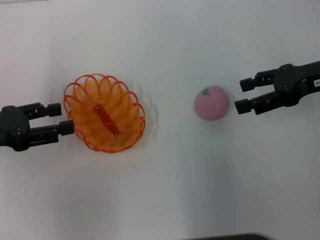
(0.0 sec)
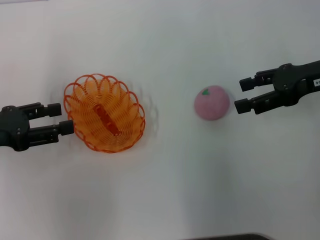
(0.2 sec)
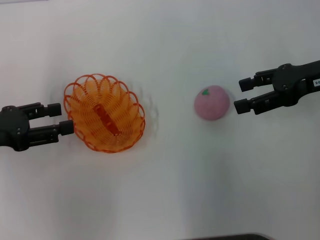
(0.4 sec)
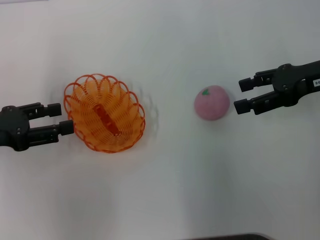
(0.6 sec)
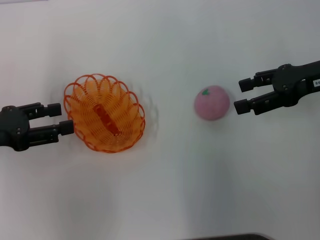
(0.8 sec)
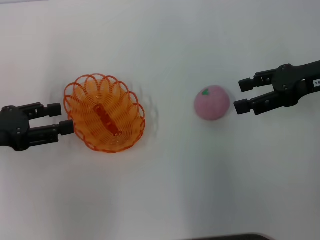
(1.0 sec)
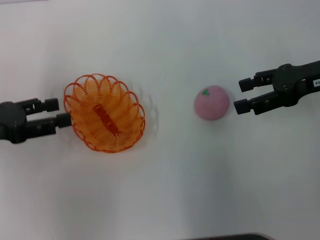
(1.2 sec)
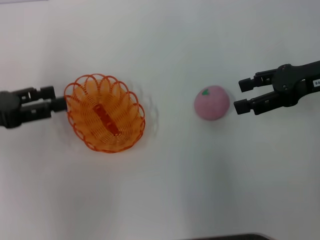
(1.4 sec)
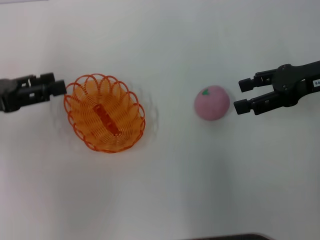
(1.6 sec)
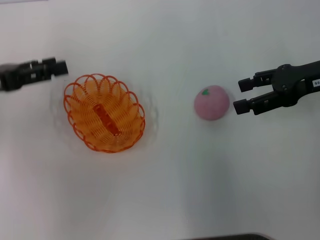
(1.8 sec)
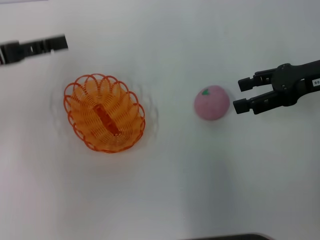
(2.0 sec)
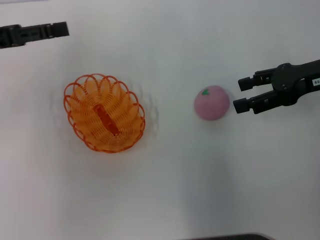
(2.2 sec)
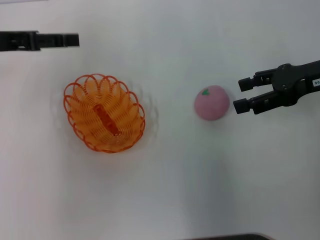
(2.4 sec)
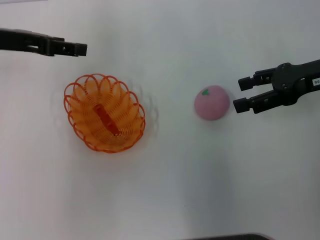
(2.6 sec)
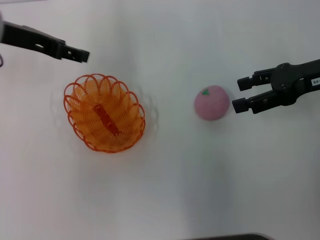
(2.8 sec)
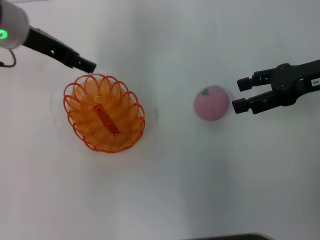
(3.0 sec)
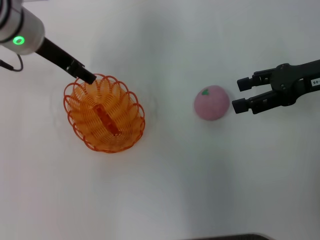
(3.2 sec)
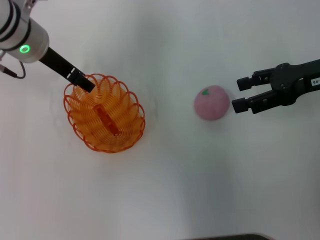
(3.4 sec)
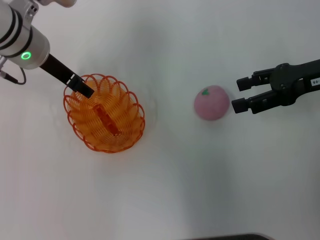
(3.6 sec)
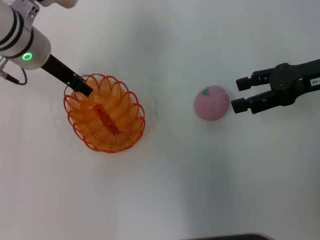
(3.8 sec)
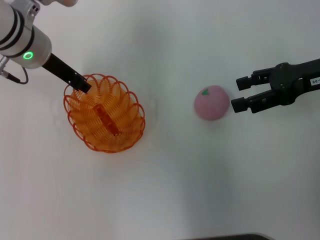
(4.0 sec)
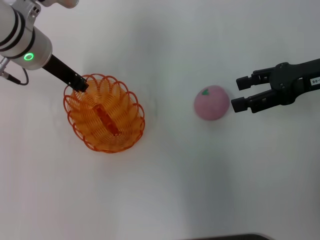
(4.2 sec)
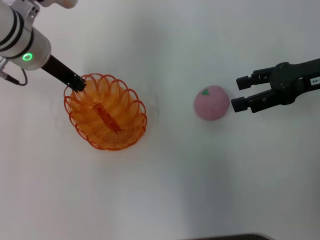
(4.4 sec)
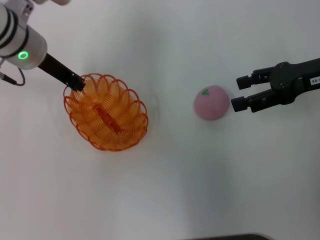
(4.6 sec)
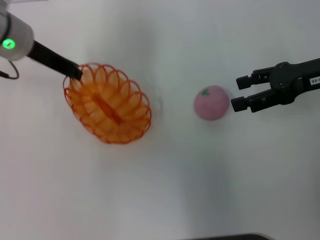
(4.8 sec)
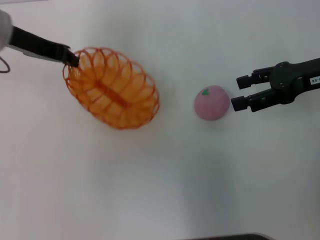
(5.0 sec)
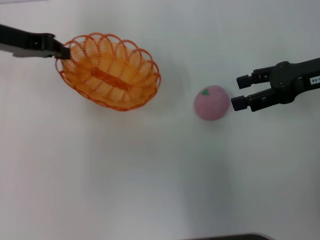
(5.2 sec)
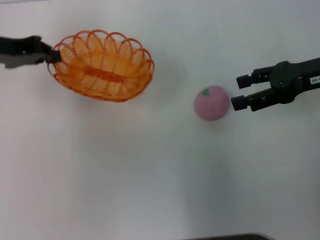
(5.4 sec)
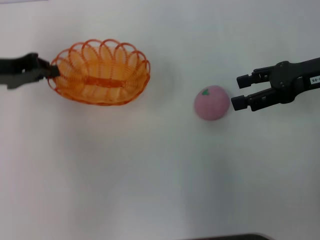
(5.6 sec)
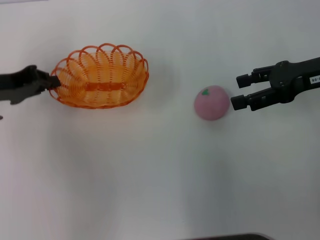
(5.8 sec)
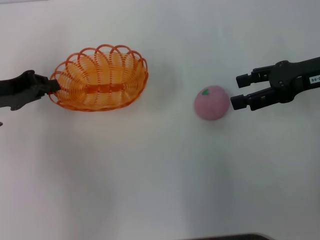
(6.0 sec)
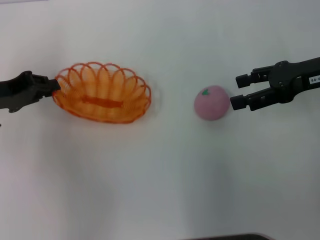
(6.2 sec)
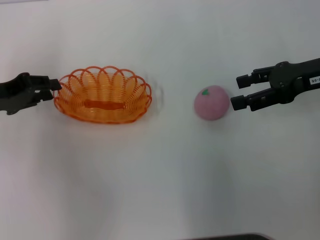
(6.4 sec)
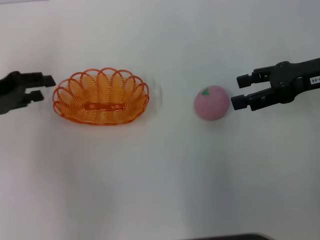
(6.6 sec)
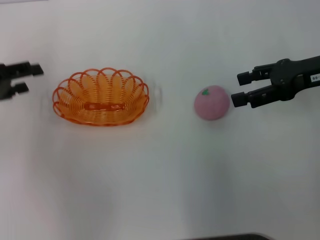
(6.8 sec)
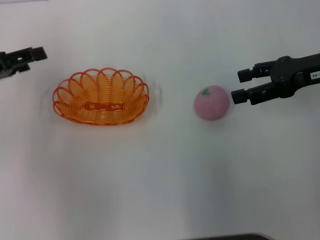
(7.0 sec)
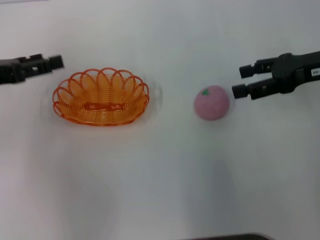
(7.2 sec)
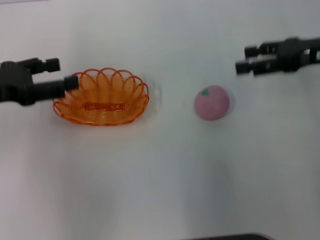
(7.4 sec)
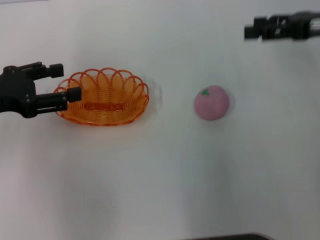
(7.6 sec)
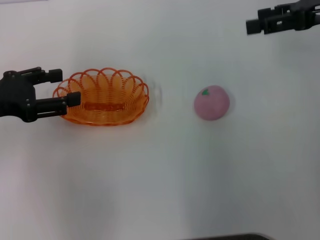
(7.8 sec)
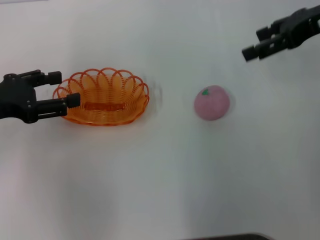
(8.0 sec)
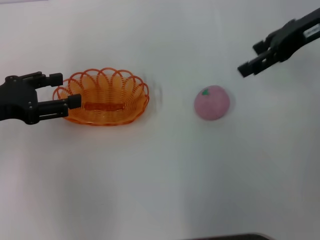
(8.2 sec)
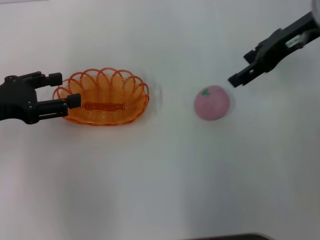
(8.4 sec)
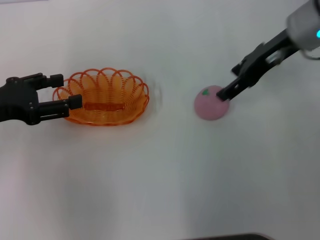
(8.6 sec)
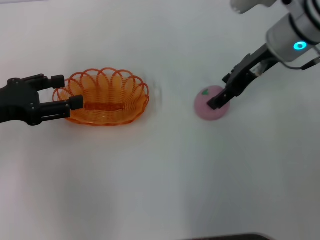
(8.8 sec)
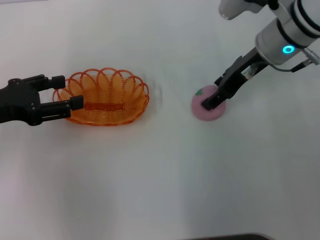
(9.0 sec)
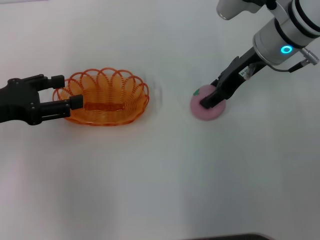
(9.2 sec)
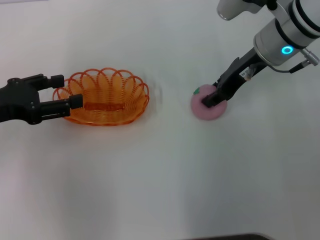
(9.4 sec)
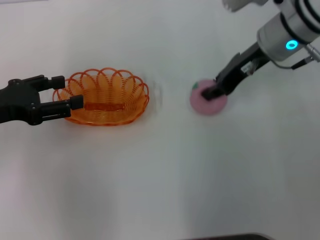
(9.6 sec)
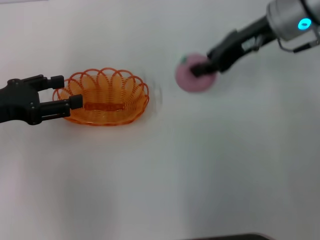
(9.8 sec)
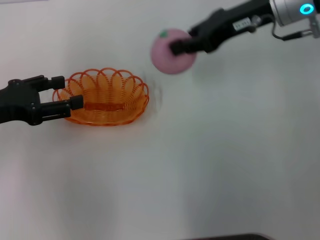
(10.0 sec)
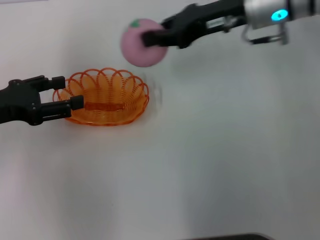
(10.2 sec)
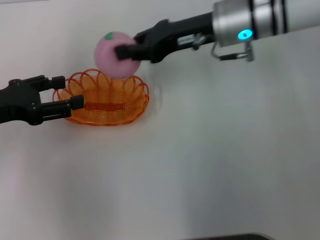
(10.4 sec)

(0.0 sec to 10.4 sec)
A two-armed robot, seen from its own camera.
Step, 0.0 sec - 5.2 sec: Pick up the basket with the left gripper.
Step, 5.4 sec - 7.8 sec: Place the basket in the center of view with the left gripper.
Step, 8.0 sec - 10.0 sec: Pick up the peach with the right gripper.
0.0 sec - 1.4 sec: There are only small adjustments of the grippers.
1.4 sec - 3.0 sec: The left gripper goes some 20 cm to the right, forward and upward.
3.0 sec - 4.4 sec: The left gripper closes.
4.4 sec - 6.0 sec: The left gripper heads to the left and backward, covering roughly 15 cm.
6.0 sec - 7.4 sec: The left gripper opens.
7.4 sec - 9.0 sec: The right gripper heads to the left and forward, covering approximately 15 cm.
9.0 sec - 10.4 sec: The right gripper changes place by approximately 5 cm, and closes its fingers.

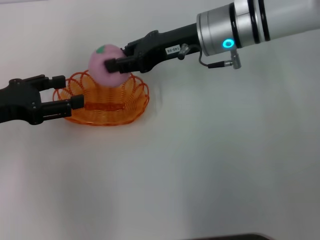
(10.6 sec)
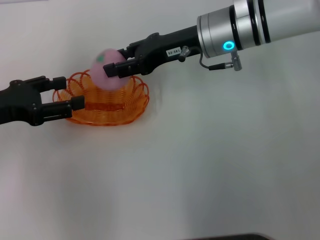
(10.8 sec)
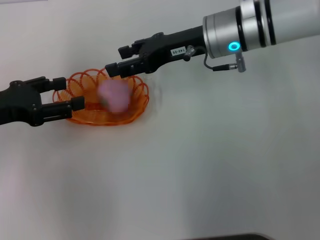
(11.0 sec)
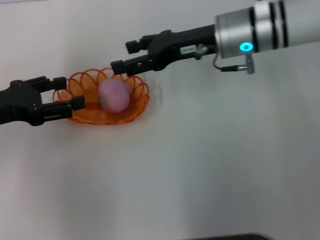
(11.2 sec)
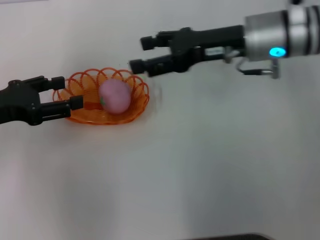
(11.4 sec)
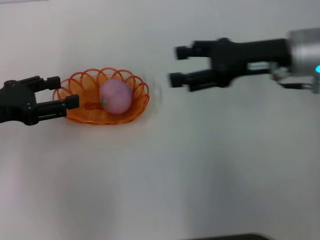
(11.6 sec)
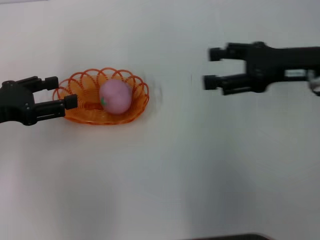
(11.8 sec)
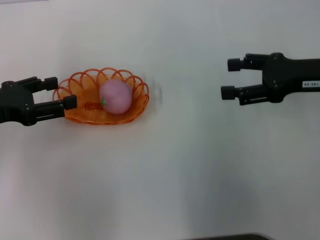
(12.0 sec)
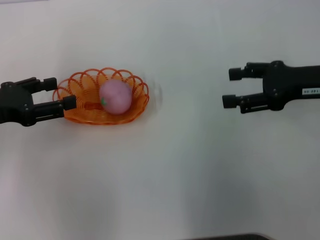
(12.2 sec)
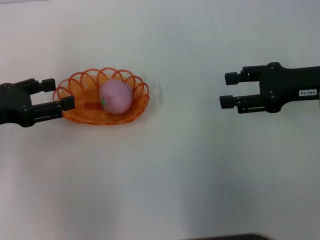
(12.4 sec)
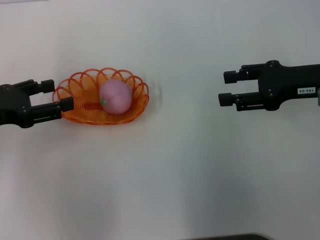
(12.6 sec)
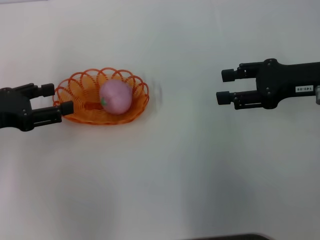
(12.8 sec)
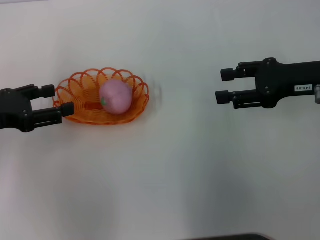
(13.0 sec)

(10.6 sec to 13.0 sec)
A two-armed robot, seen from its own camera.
Step, 10.6 sec - 11.6 sec: Place the peach into the basket with the right gripper.
10.6 sec - 11.8 sec: The right gripper travels to the right and backward by roughly 15 cm, and opens its fingers.
11.8 sec - 13.0 sec: The grippers stay close to where they were, moving slightly.
